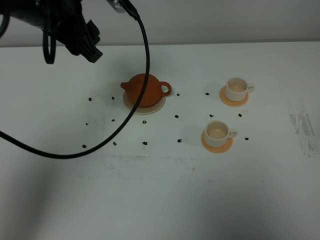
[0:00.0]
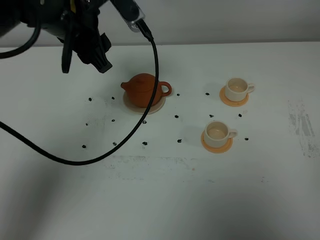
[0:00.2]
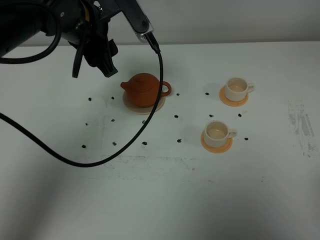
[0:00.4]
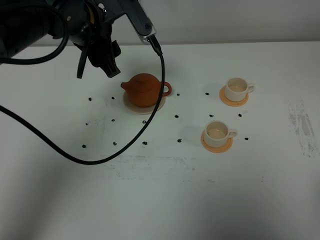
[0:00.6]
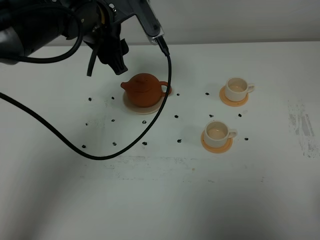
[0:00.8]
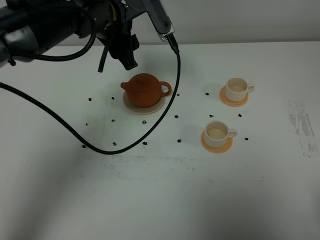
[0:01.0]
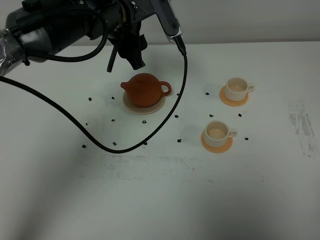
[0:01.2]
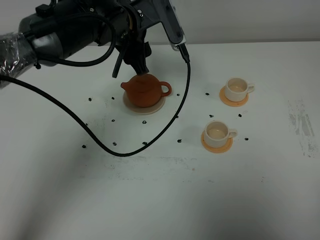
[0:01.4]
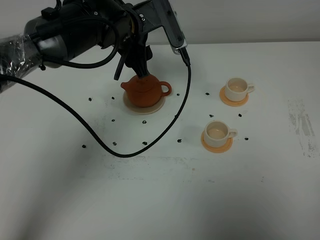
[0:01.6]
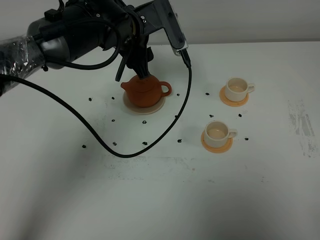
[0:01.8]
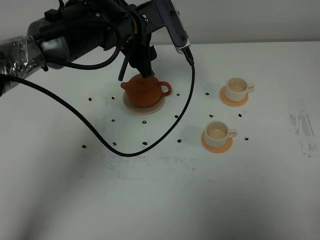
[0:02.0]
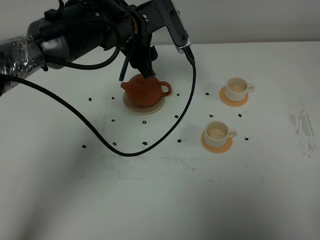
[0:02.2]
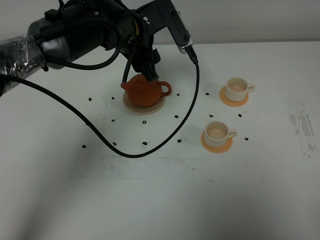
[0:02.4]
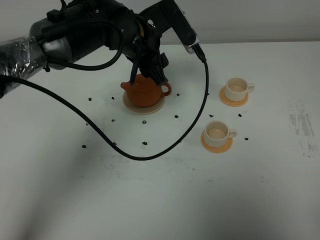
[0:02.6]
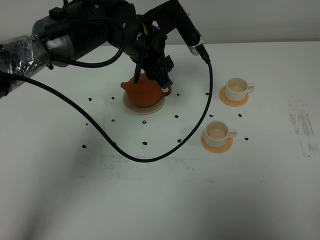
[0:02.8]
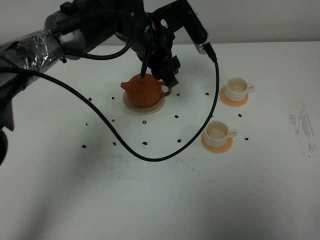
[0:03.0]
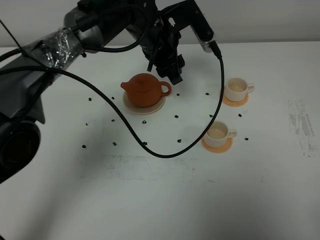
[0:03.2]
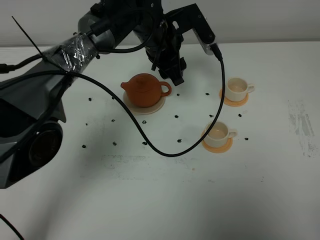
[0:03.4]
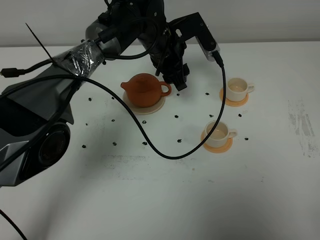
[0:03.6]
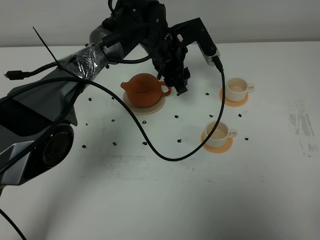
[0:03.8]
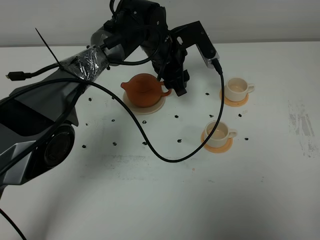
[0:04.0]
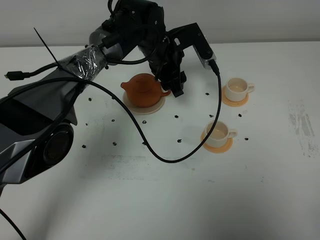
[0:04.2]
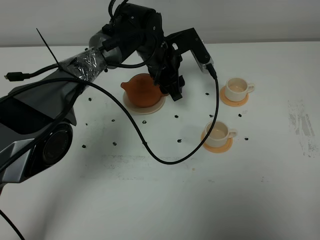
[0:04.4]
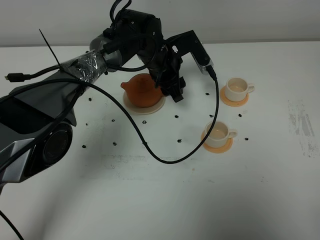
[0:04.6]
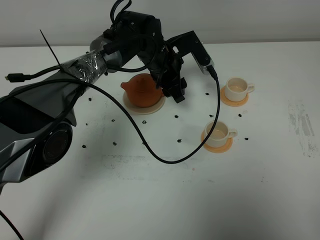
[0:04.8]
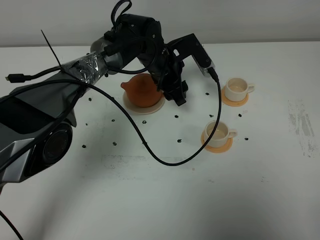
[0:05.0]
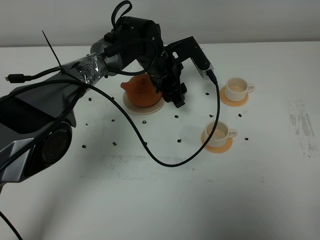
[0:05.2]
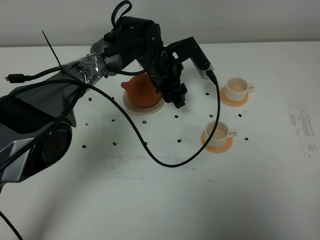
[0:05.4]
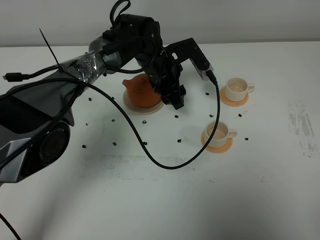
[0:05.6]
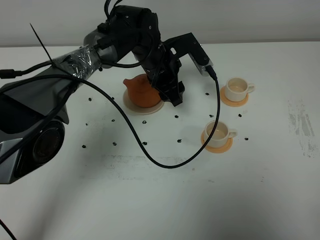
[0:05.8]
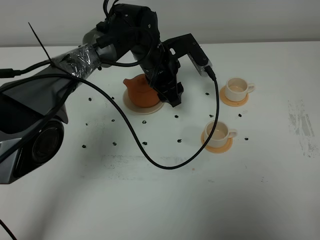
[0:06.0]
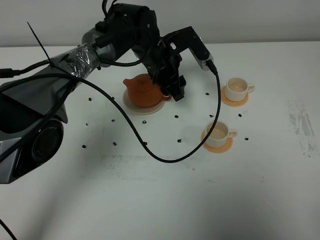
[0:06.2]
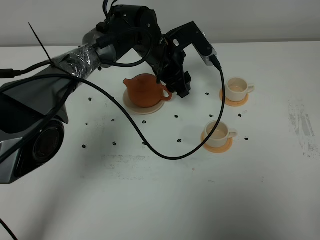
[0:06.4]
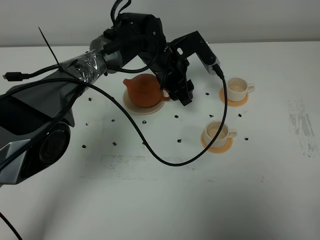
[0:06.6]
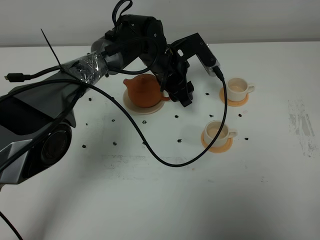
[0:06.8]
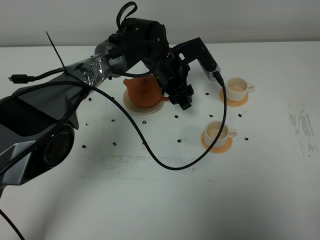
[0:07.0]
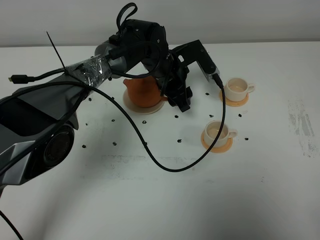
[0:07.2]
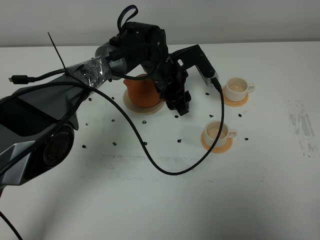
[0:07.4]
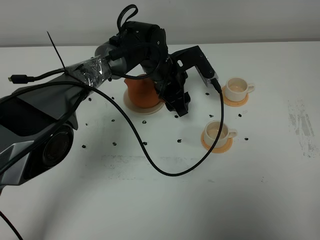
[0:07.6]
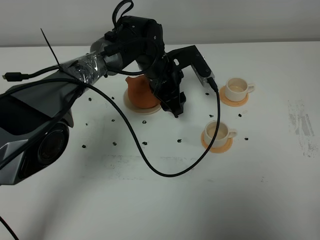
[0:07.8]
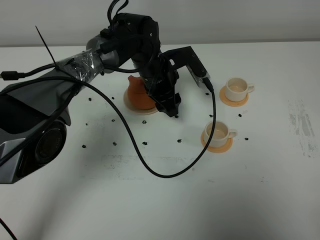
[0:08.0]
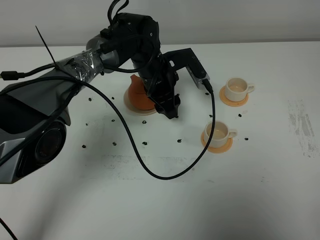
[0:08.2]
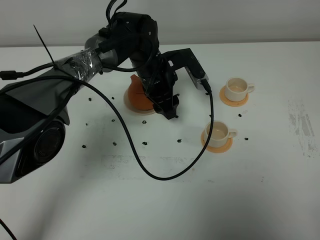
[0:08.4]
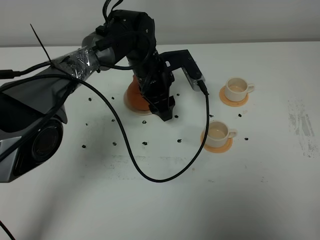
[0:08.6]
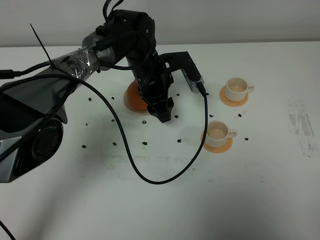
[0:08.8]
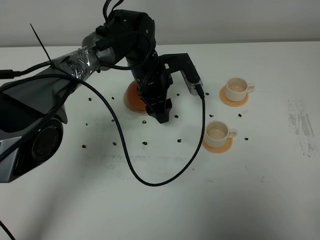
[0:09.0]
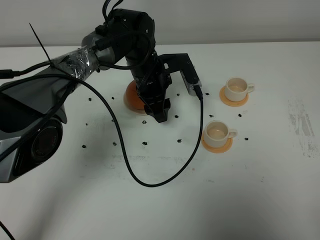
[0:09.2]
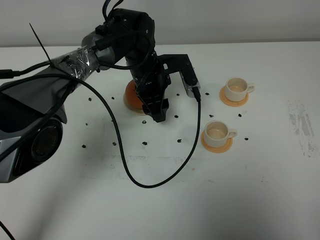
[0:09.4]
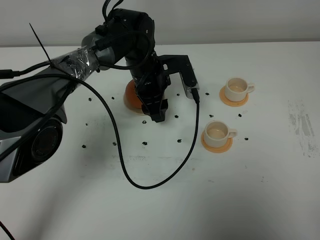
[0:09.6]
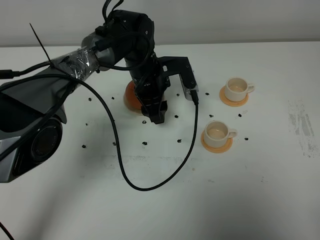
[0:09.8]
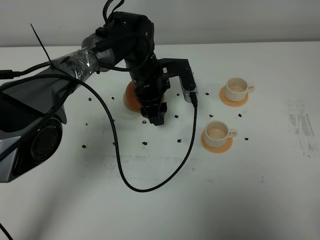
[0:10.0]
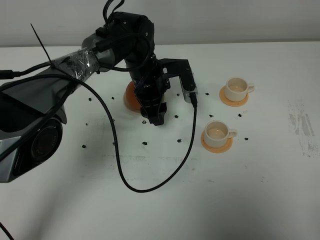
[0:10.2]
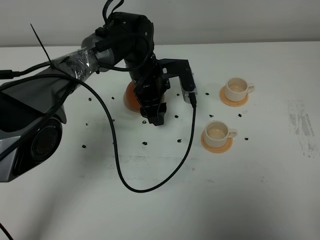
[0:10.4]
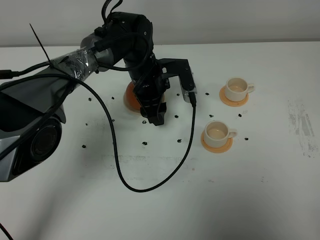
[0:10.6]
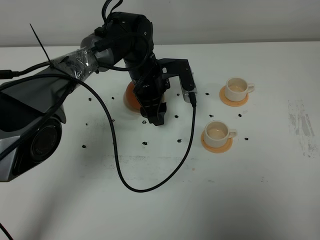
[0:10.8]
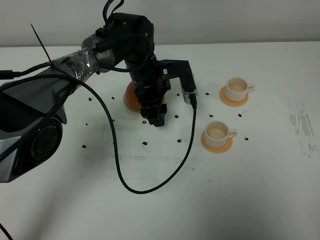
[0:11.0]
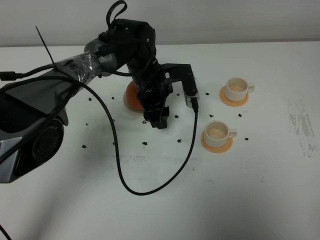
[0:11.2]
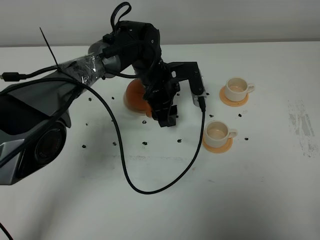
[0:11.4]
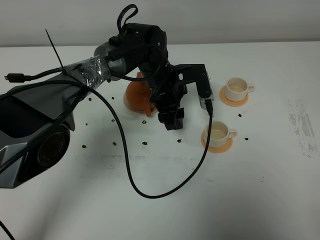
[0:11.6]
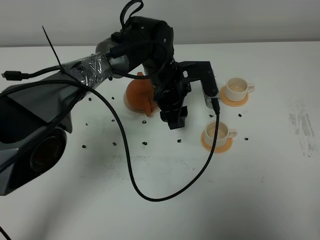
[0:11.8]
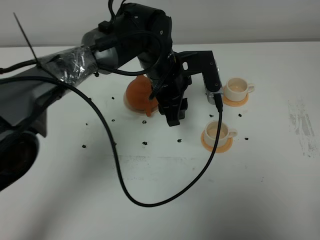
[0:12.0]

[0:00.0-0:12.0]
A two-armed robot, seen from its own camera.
Task of the whole recording: grasp the brown teapot and pour the tea into the two white teacups one by one, put the brown teapot back in its original place.
0:00.0 to 0:01.6: The left gripper heads downward, to the right and forward, covering some 15 cm; the right gripper travels downward and backward by approximately 20 cm, and closes up.
0:01.6 to 0:03.0: The grippers stay close to where they were, moving slightly.
0:03.0 to 0:04.4: The left gripper travels downward and forward by about 10 cm.
0:04.4 to 0:09.0: The grippers stay close to where they were, moving slightly.
0:09.0 to 0:10.4: The grippers stay close to where they were, moving slightly.
0:10.4 to 0:12.0: The left gripper shifts about 10 cm upward and backward.

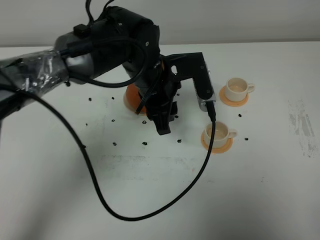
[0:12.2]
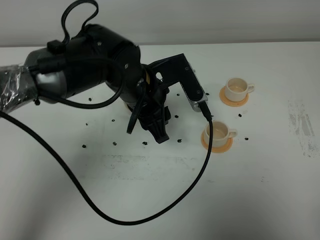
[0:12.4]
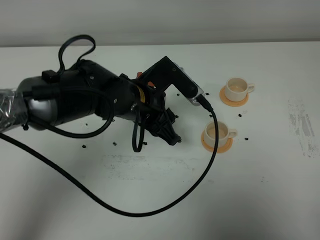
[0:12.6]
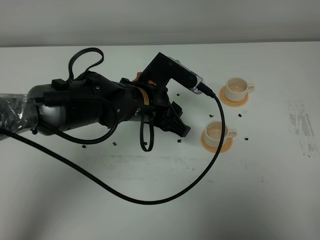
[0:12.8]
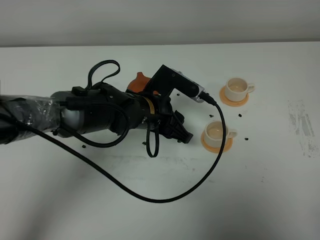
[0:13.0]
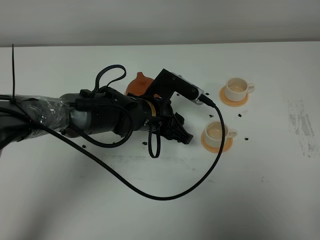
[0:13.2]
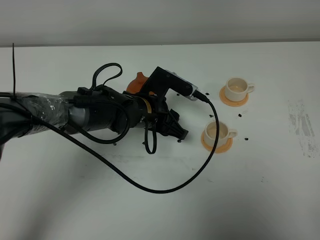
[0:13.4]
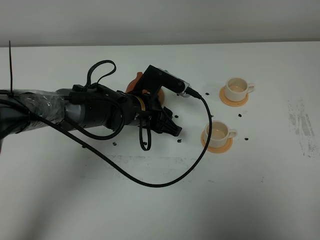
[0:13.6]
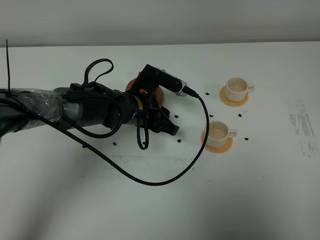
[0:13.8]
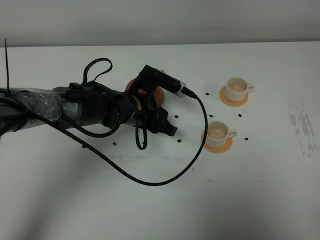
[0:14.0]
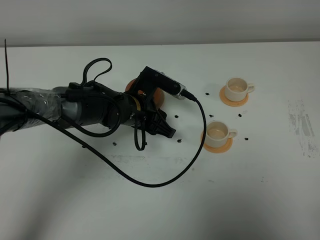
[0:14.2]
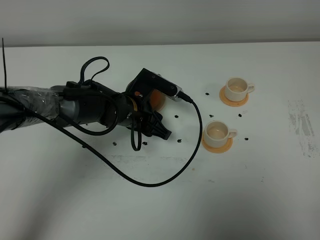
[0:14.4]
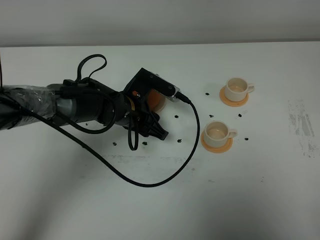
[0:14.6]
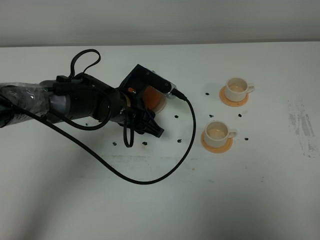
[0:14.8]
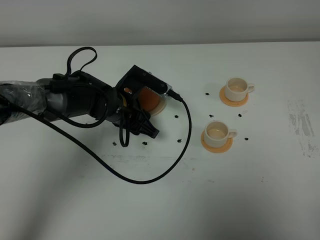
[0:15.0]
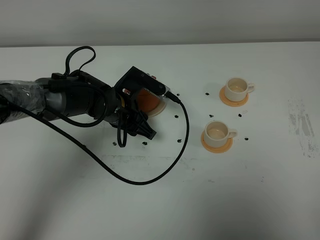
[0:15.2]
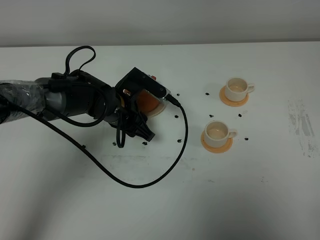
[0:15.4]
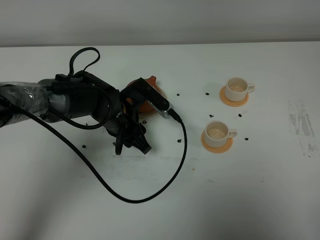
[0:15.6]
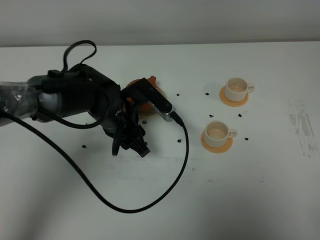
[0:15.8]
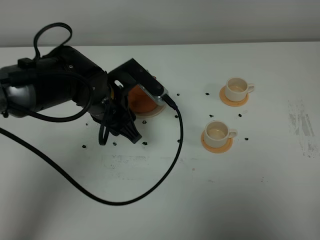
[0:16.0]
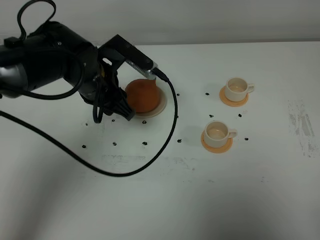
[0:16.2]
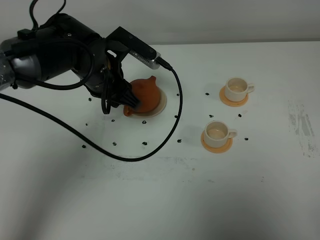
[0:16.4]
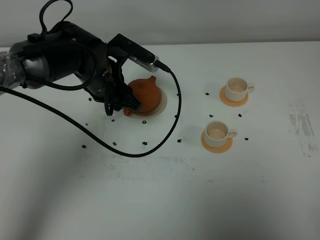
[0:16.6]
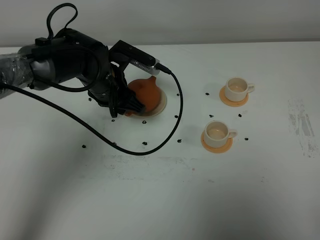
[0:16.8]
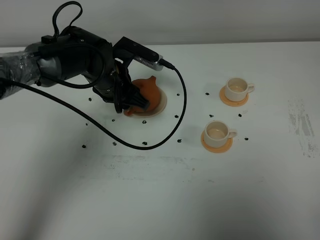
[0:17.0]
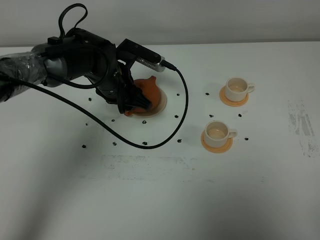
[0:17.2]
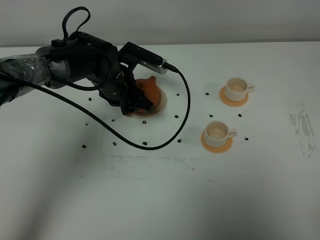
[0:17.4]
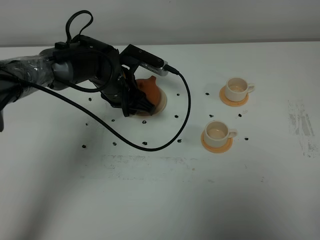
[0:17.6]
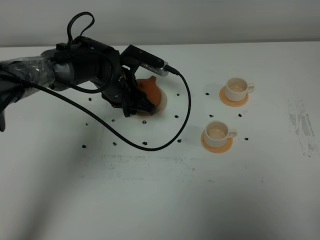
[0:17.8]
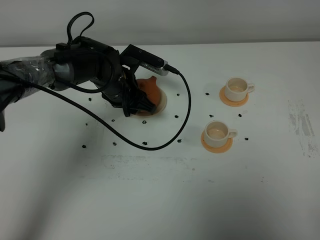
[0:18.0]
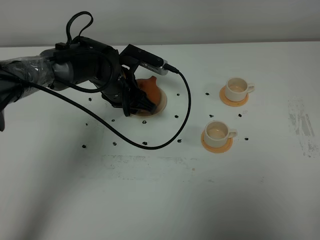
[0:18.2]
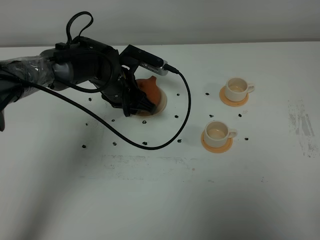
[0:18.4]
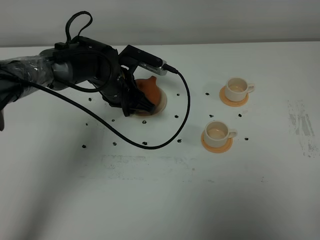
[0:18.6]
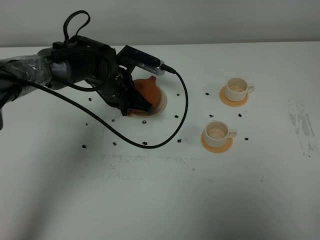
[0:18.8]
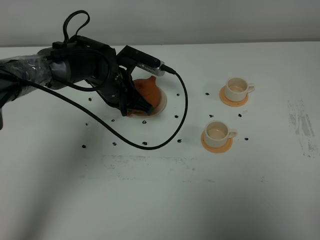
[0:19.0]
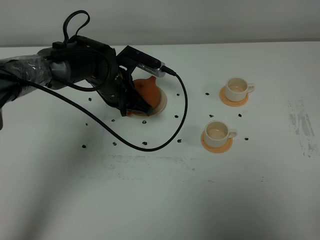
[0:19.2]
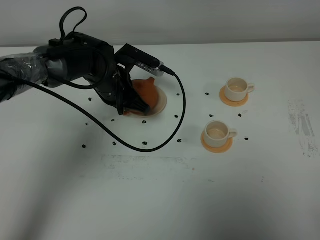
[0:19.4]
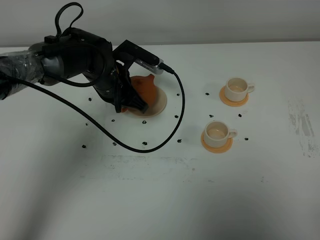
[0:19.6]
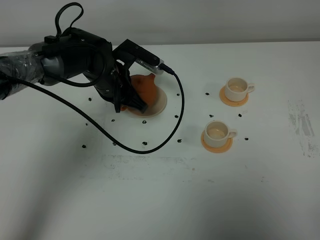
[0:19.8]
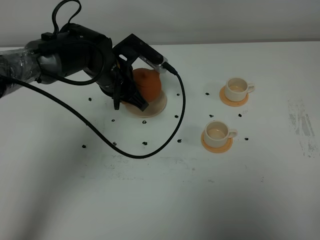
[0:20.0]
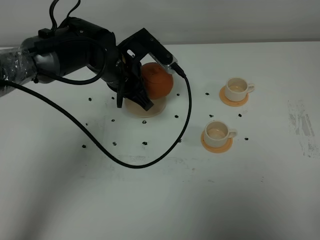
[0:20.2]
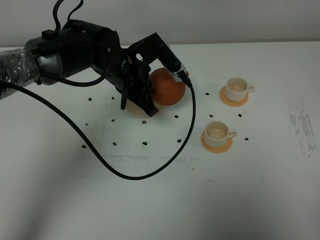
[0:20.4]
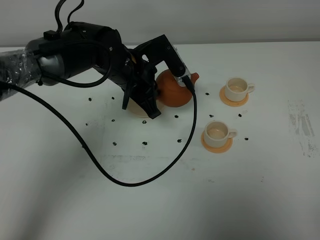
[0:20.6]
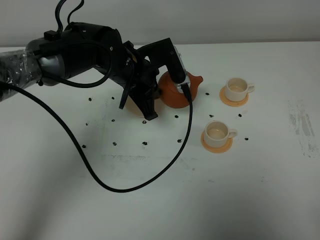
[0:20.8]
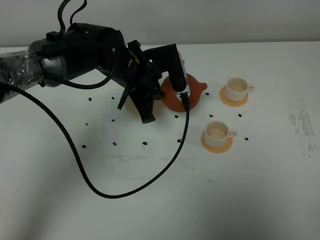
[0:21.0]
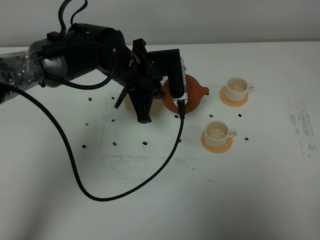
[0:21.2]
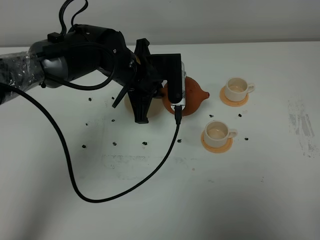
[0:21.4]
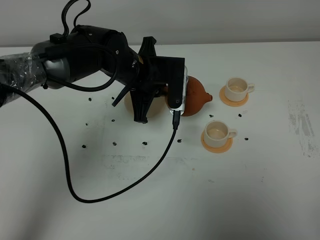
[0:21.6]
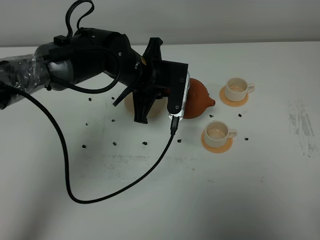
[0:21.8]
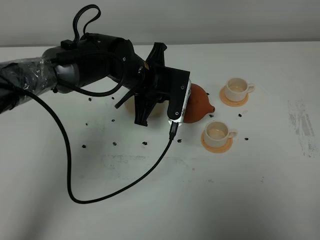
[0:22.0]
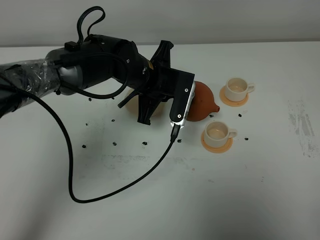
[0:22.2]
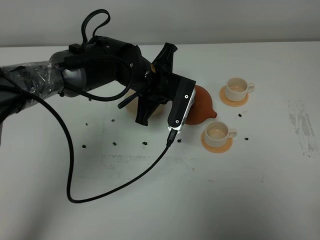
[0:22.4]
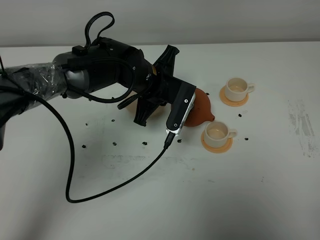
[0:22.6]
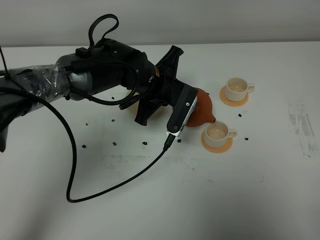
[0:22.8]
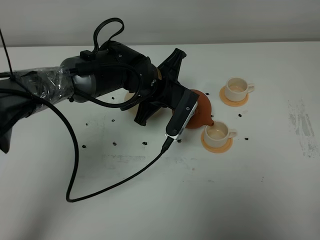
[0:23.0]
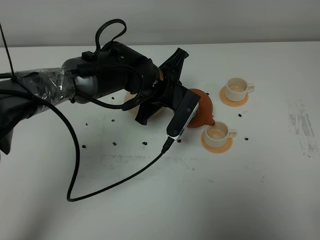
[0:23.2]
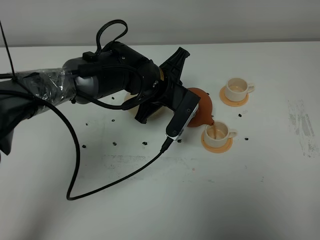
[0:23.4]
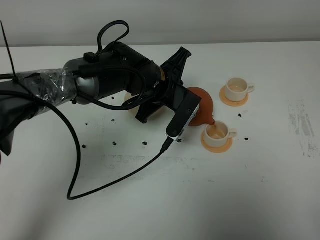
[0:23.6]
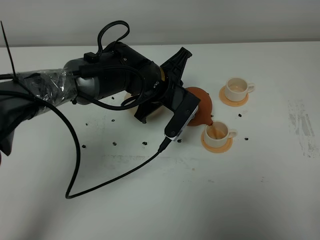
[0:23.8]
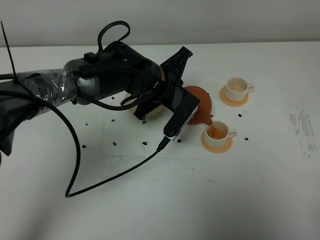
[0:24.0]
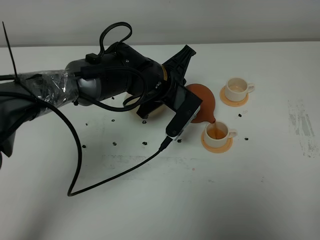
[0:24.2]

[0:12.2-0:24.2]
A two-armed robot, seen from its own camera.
Task of the whole recording: grasp the brown teapot and pour the tea into the two white teacups one by one, put the brown teapot back in its original place.
Step, 0:12.2 to 0:19.4: Pick up the teapot with the left gripper.
0:12.2 to 0:13.8: The left gripper is displaced downward by approximately 10 cm.
0:13.8 to 0:15.2: The grippers move only a little.
0:15.2 to 0:16.6: The left gripper travels upward by some 5 cm.
0:16.6 to 0:18.2: The left gripper moves some 5 cm.
0:18.2 to 0:19.8: The left gripper closes up.
0:19.8 to 0:21.2: The left gripper ends up about 5 cm from where it was.
0:22.6 to 0:24.2: There are only small adjustments of the grippers.
